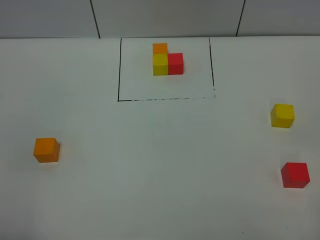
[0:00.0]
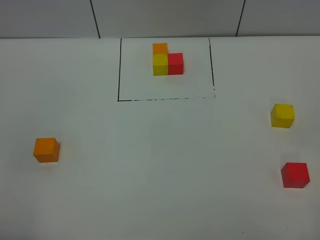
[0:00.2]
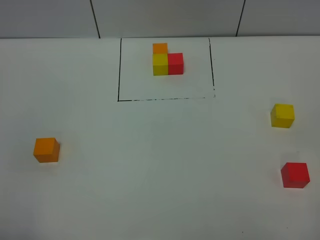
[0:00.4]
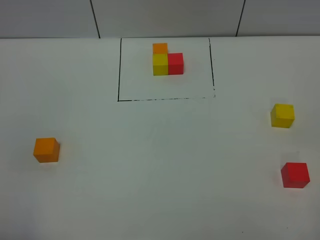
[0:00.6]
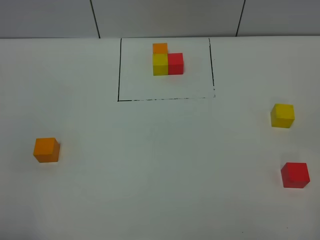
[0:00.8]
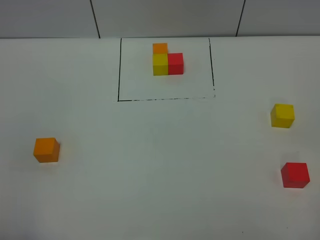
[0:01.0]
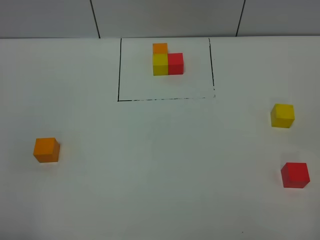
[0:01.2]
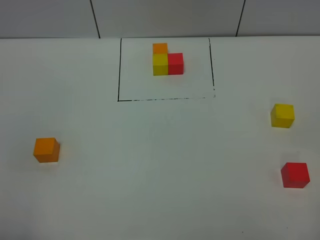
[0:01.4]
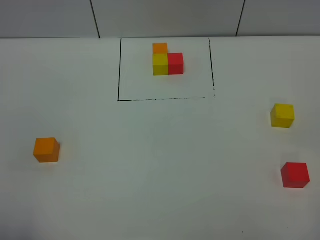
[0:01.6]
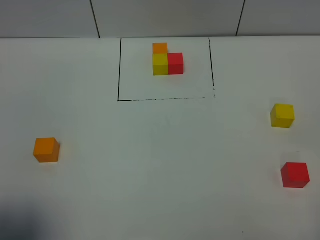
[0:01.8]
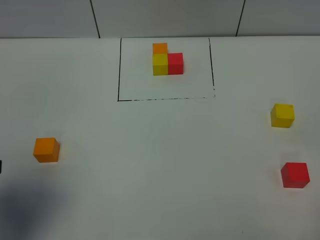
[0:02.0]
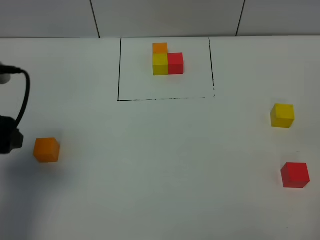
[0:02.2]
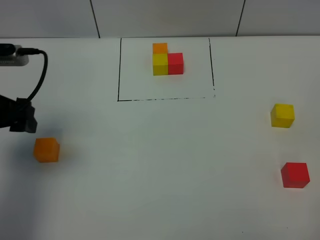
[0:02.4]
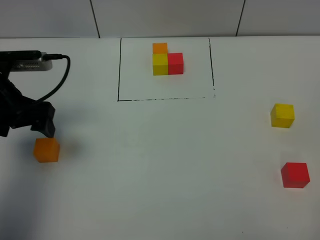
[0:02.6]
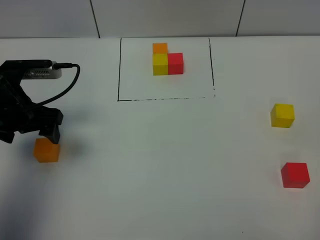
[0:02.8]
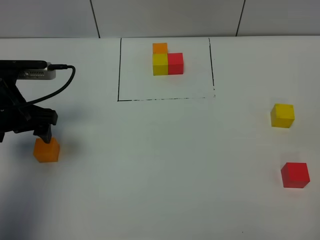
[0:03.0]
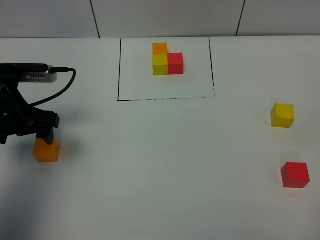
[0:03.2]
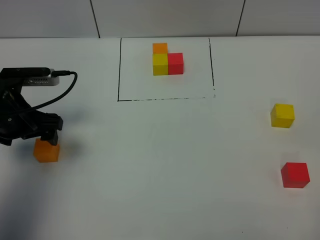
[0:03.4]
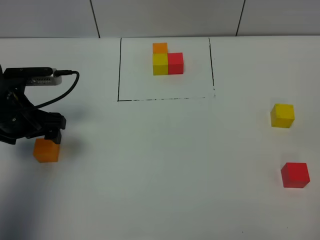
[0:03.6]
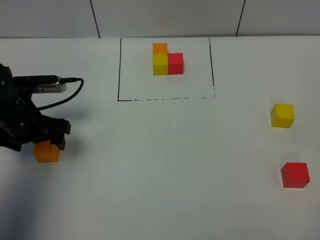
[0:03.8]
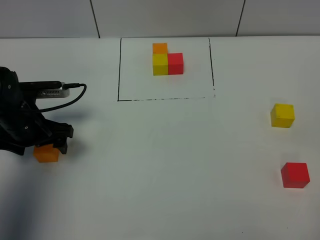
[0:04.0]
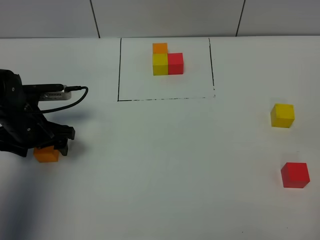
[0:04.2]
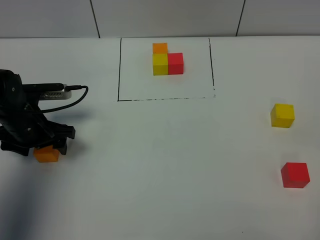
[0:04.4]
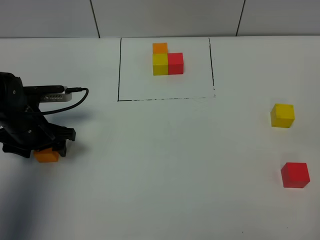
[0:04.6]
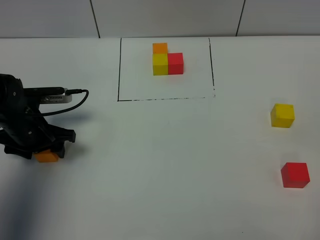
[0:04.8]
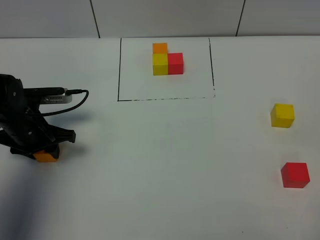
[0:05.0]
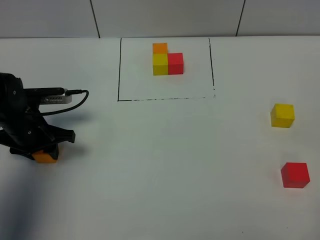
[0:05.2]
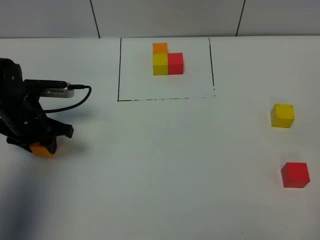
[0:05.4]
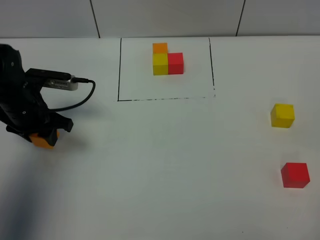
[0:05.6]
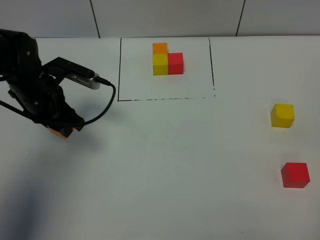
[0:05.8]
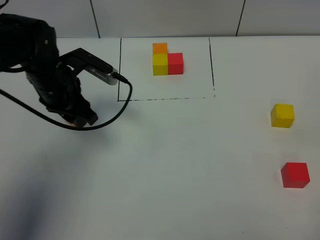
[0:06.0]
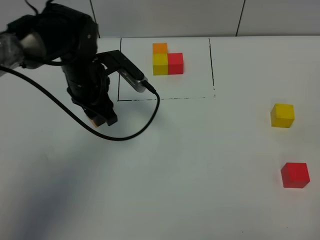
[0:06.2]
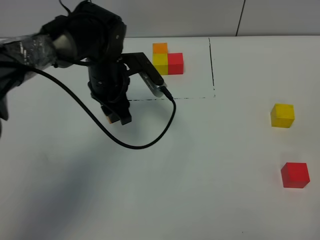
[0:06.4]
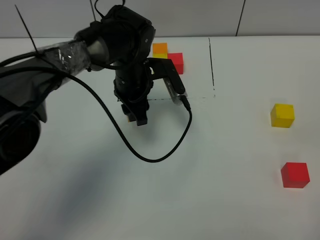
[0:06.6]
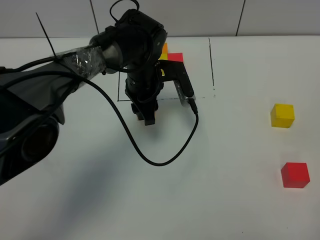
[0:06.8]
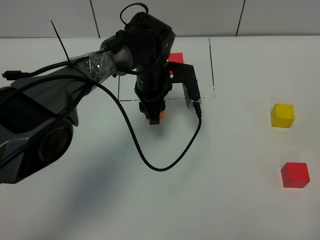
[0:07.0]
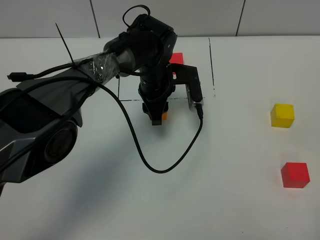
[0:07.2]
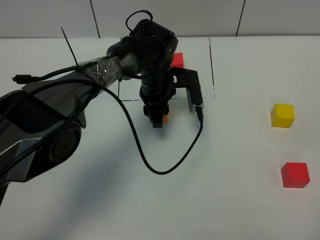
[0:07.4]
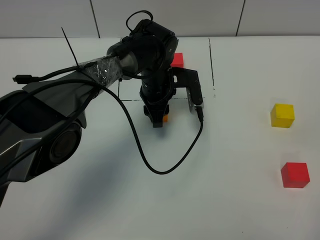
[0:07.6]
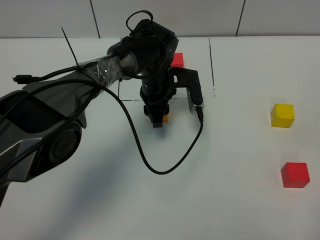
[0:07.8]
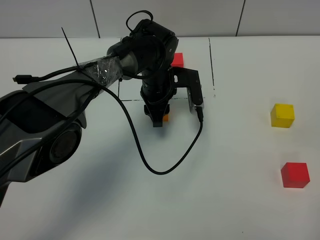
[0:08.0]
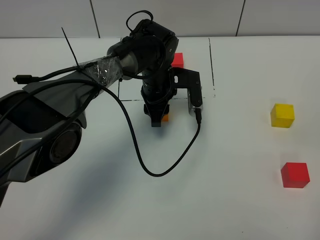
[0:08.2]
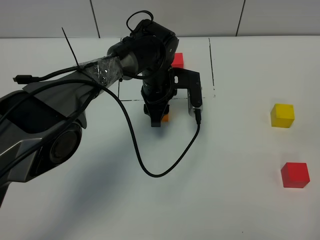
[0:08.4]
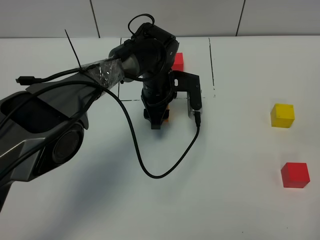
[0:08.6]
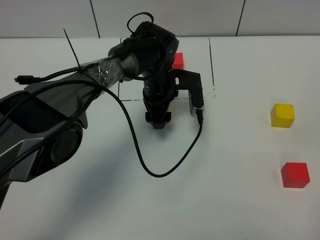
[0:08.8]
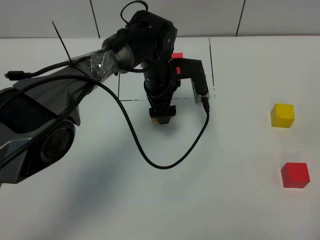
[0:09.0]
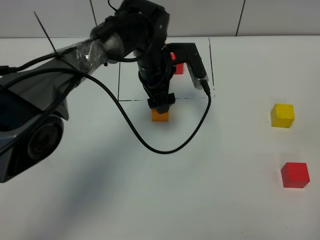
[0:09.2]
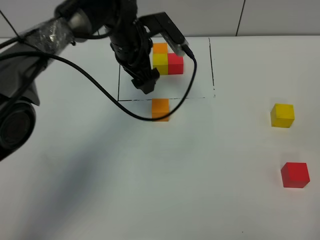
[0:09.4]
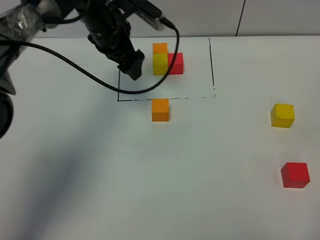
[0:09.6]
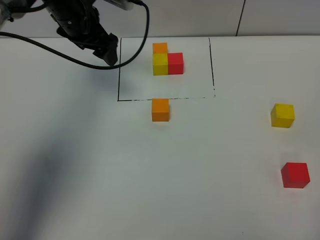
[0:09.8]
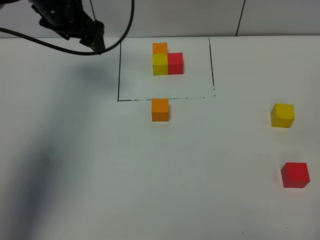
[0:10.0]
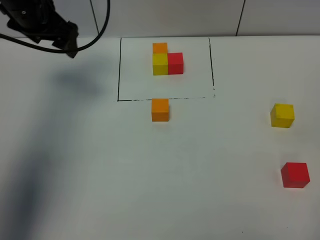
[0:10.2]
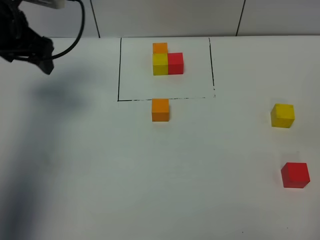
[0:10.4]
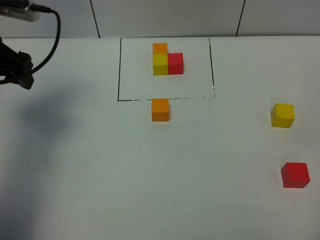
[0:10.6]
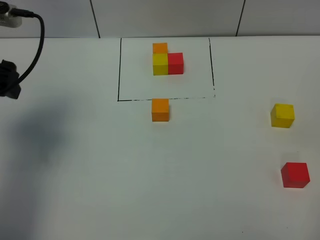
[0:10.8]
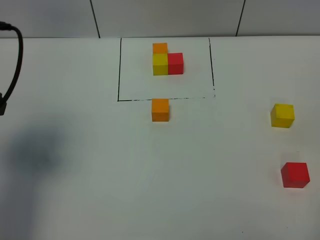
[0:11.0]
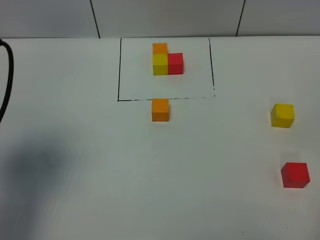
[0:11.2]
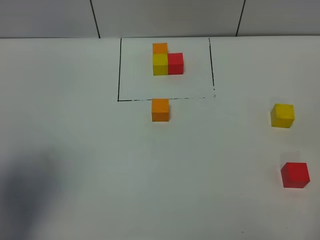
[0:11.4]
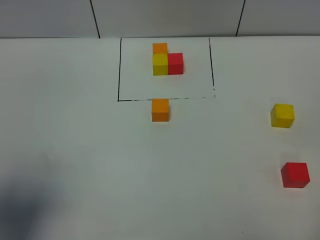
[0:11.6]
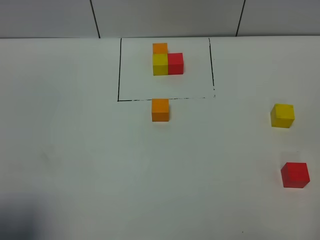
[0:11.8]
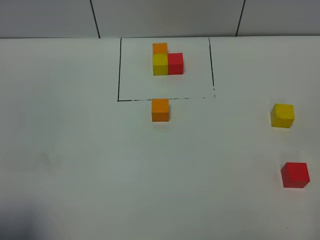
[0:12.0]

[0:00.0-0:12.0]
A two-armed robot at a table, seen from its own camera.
Task of the whole recording: According to the building block template in front, assemble the scattered blocks together.
Step, 0:00.0 to 0:08.6: Put the orange build block in the center of the table.
0:01.6 to 0:03.0: The left gripper heads forward, covering some 30 cm.
0:03.0 to 0:04.4: The left gripper shifts roughly 10 cm downward.
0:04.4 to 0:06.0: The left gripper shifts about 10 cm to the right and upward, and closes.
0:06.0 to 0:07.6: The left gripper shifts some 20 cm to the right and downward.
0:07.6 to 0:09.0: The left gripper opens its fingers.
0:09.0 to 0:10.4: The left gripper shifts some 30 cm to the left and upward.
0:10.4 to 0:12.0: The left gripper shifts some 35 cm backward.

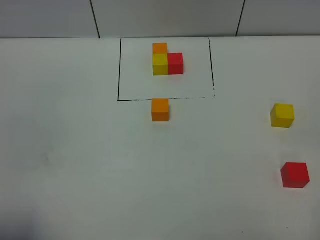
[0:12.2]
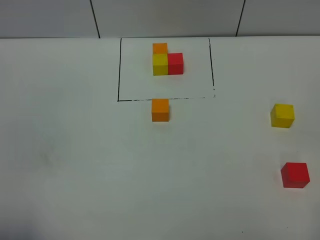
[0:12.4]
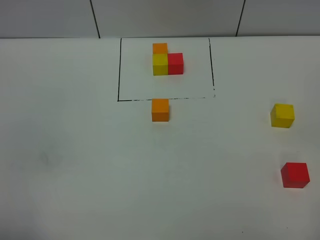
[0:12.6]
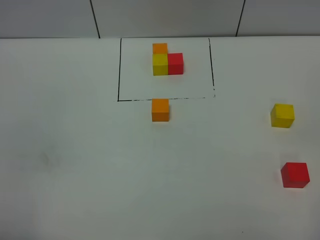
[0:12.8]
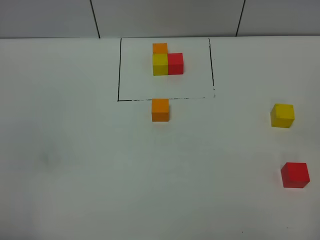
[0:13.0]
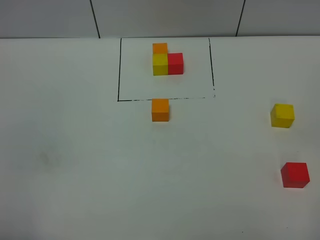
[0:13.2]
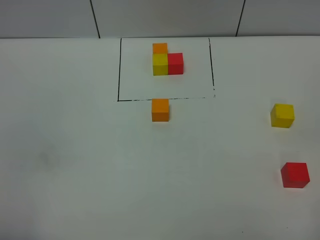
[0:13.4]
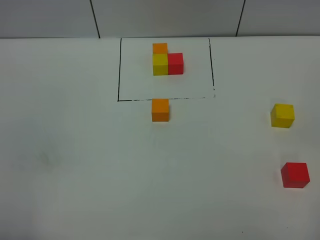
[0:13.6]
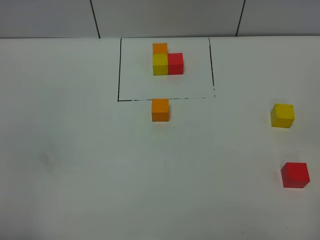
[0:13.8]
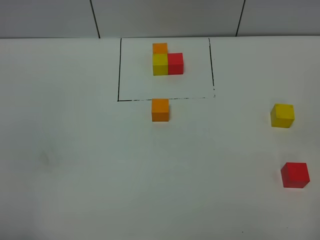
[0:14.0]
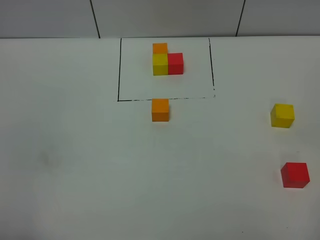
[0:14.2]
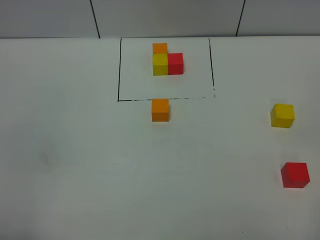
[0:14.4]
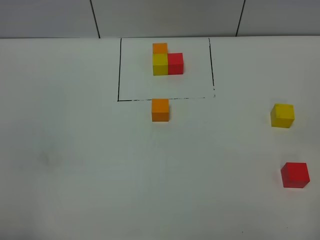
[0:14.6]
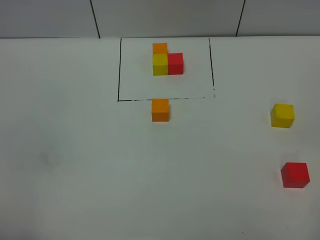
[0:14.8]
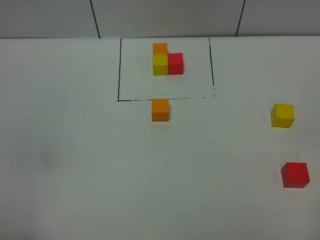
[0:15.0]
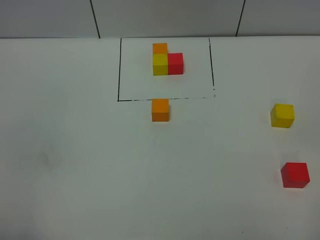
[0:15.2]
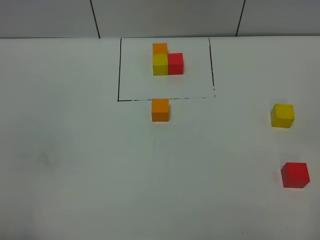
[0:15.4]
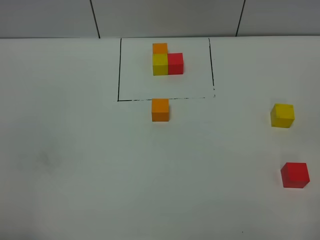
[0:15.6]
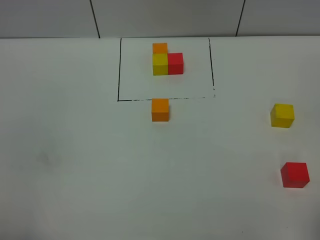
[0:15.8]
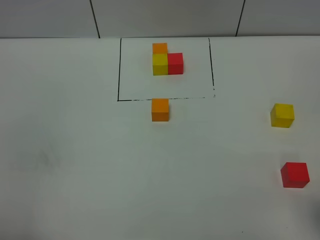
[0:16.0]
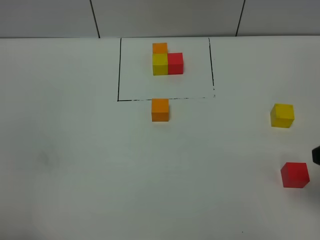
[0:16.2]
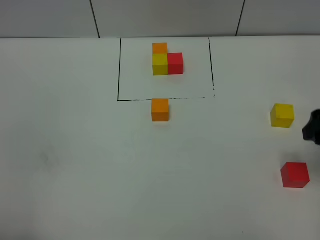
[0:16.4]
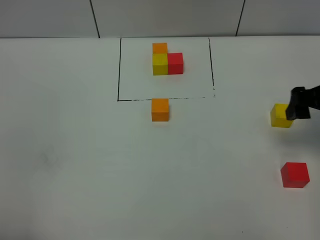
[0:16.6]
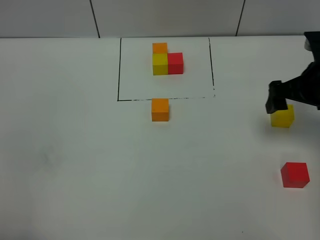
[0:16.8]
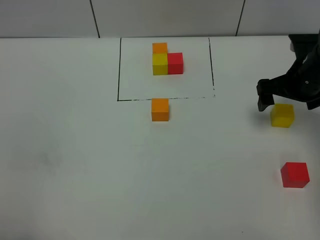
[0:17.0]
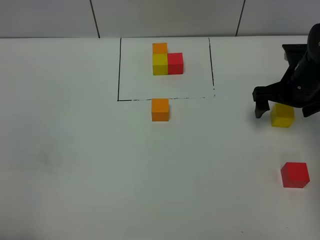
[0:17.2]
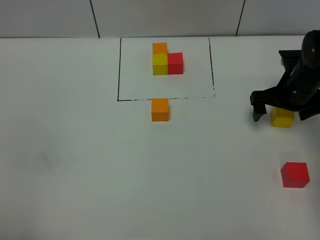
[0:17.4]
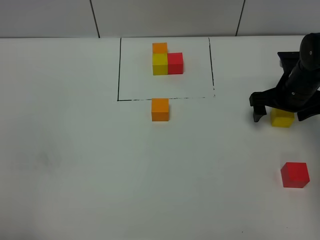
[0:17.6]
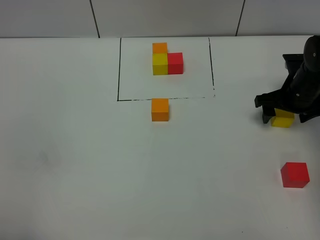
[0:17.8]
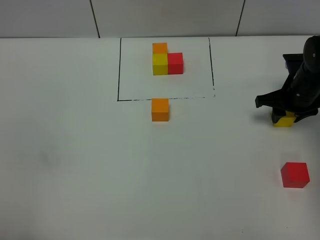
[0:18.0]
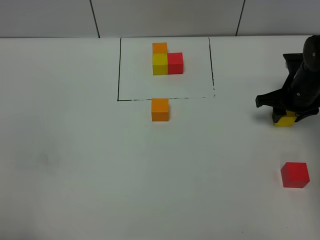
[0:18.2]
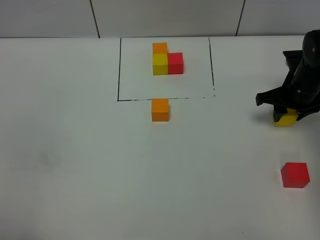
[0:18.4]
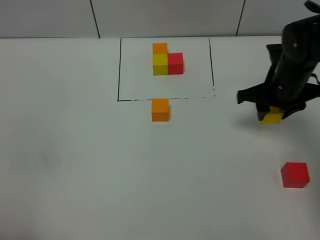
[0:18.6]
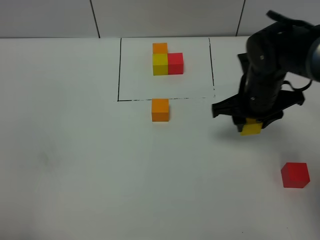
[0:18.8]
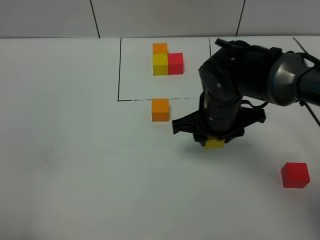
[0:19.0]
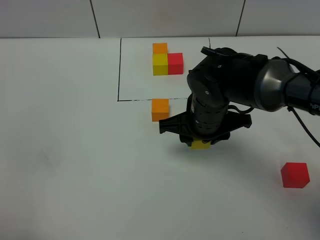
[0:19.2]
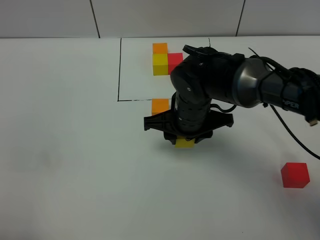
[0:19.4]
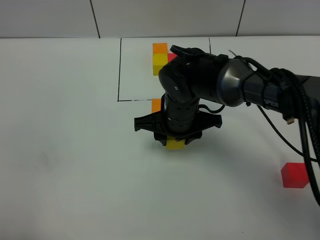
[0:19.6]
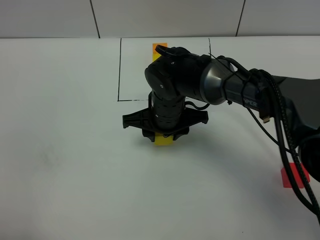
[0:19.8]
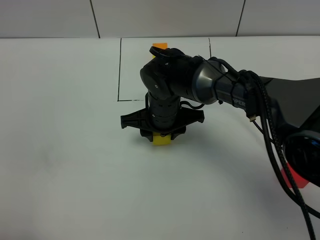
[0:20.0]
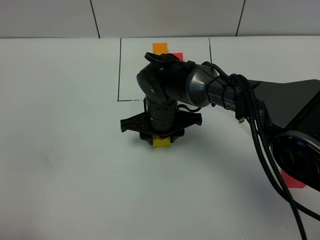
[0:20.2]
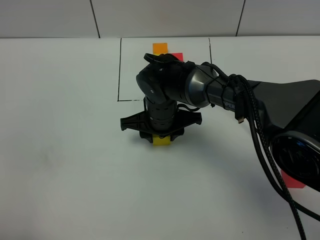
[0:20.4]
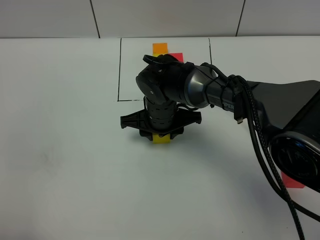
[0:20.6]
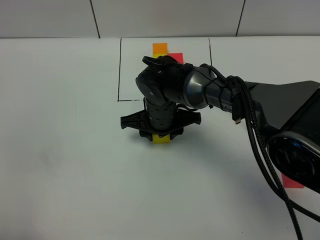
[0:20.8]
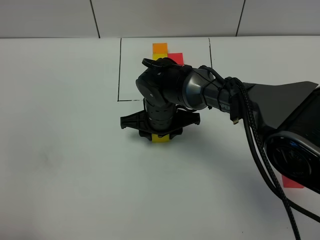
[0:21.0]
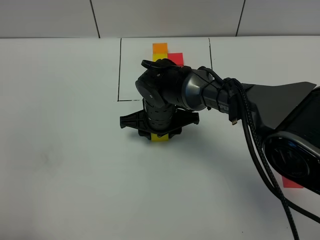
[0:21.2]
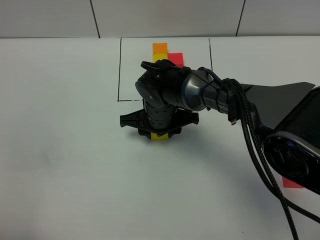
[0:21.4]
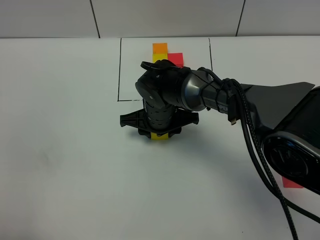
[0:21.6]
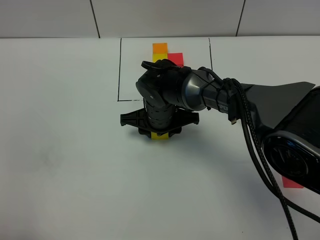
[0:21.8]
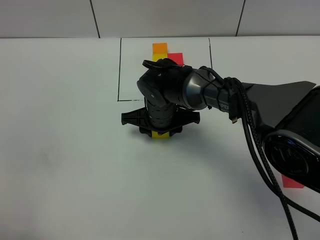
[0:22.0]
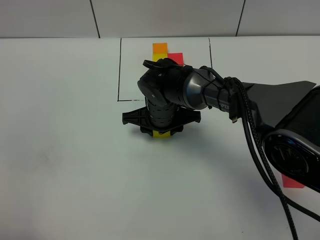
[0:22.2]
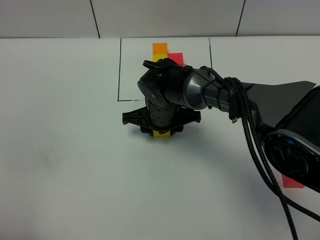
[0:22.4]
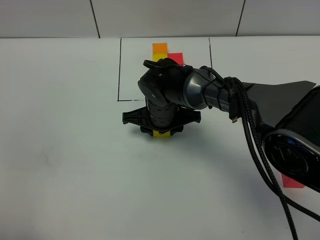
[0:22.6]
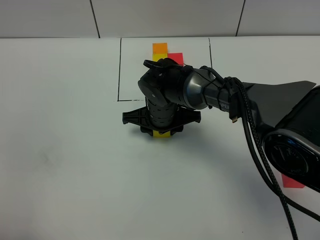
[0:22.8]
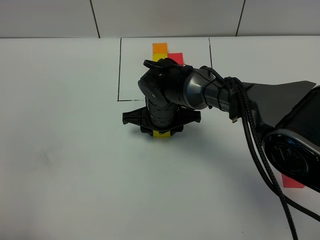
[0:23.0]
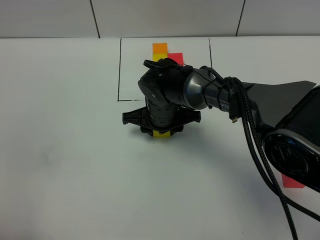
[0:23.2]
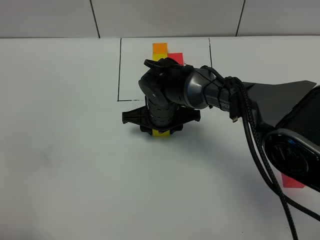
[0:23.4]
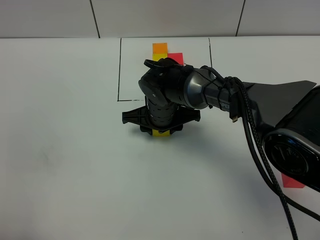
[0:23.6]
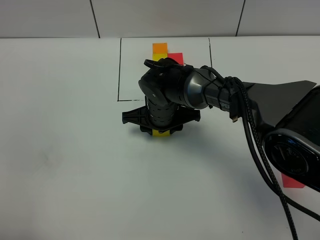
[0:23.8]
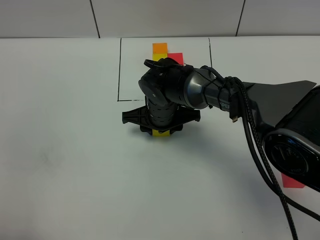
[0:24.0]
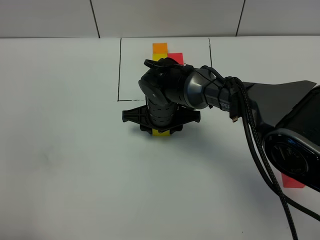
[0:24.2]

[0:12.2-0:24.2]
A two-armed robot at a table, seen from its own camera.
Task of the whole recording: According to the building block template in front, assemble the scattered blocks together.
0:13.8 to 0:15.2: Both grippers stay about where they are.
0:15.2 to 0:16.6: The right gripper goes some 30 cm forward.
0:16.6 to 0:18.2: The right gripper is displaced downward and forward by roughly 15 cm, and closes.
0:18.2 to 0:19.8: The right gripper is displaced to the left by roughly 30 cm.
0:19.8 to 0:21.2: There are only small adjustments of the grippers.
0:21.2 to 0:24.2: Both grippers stay put.
